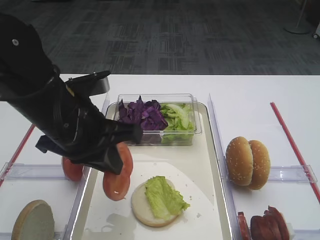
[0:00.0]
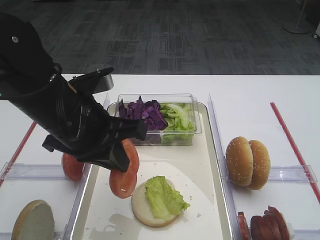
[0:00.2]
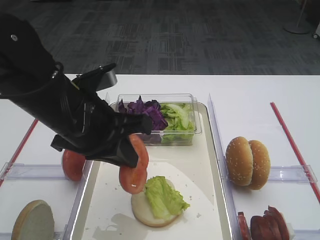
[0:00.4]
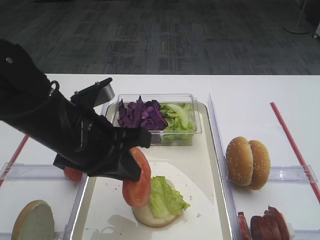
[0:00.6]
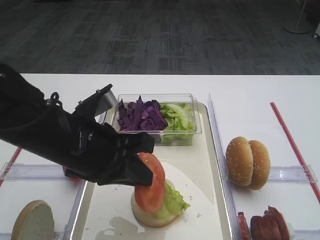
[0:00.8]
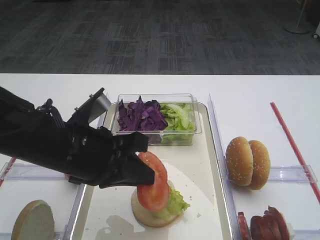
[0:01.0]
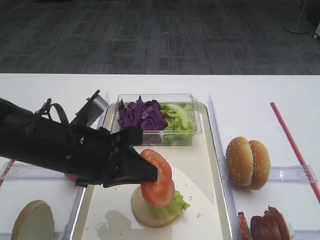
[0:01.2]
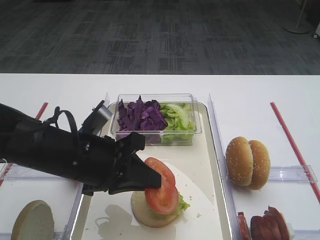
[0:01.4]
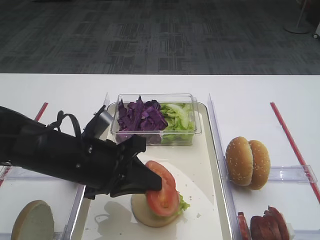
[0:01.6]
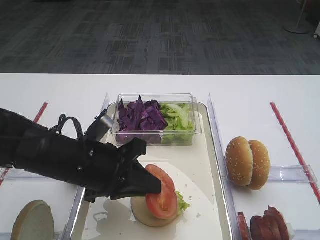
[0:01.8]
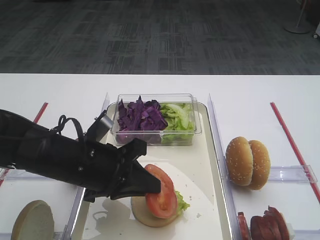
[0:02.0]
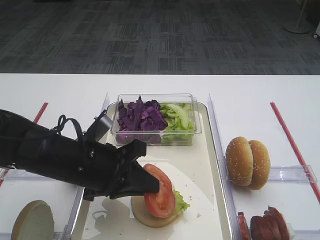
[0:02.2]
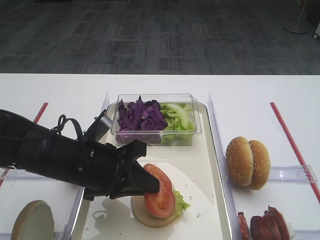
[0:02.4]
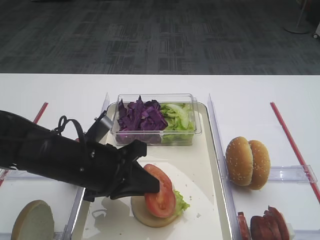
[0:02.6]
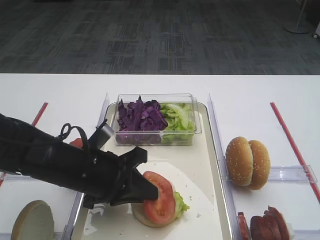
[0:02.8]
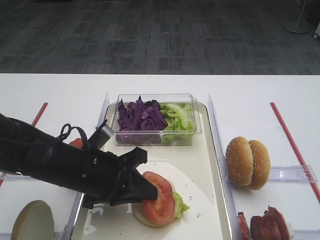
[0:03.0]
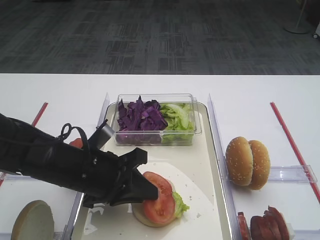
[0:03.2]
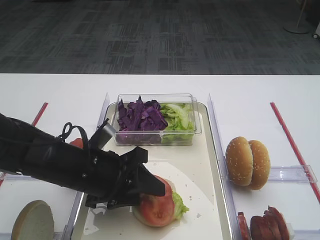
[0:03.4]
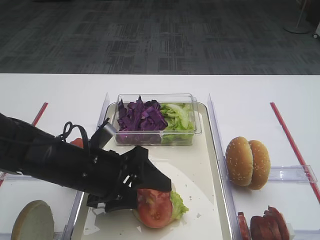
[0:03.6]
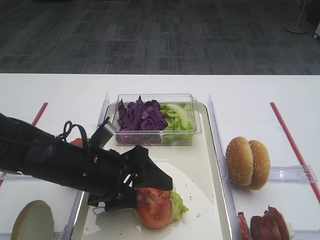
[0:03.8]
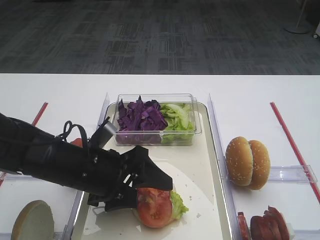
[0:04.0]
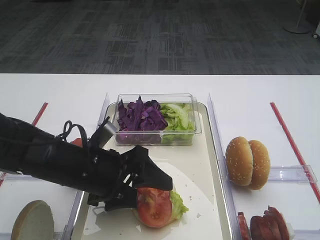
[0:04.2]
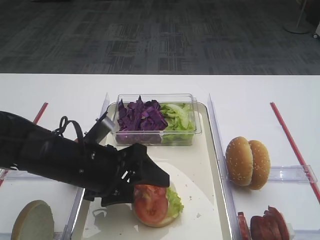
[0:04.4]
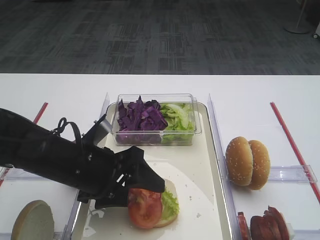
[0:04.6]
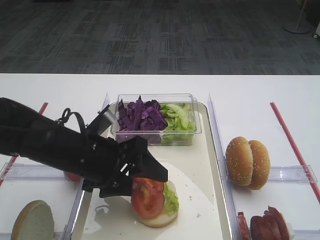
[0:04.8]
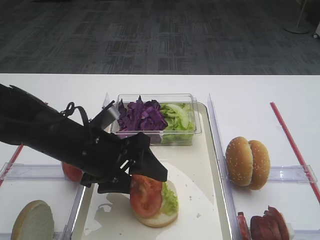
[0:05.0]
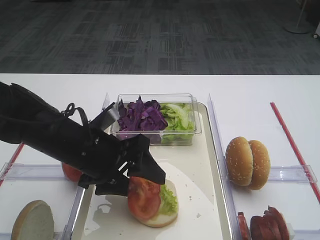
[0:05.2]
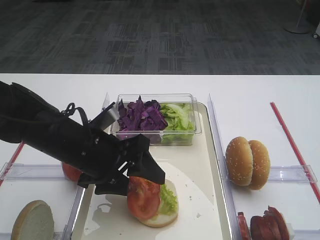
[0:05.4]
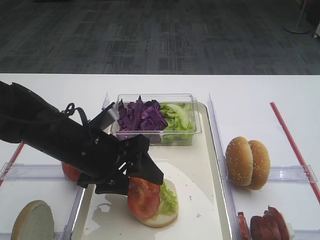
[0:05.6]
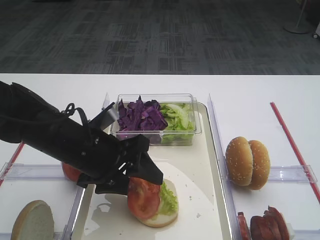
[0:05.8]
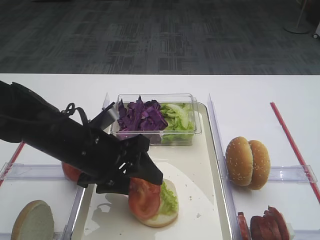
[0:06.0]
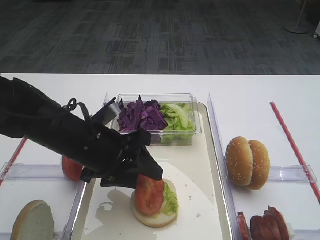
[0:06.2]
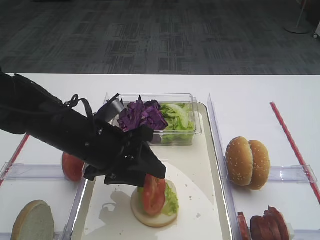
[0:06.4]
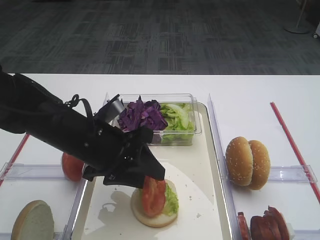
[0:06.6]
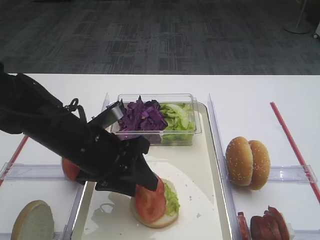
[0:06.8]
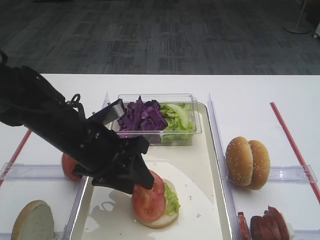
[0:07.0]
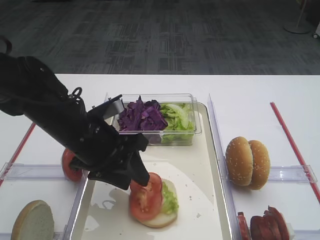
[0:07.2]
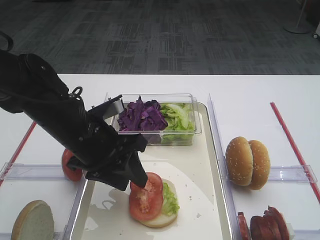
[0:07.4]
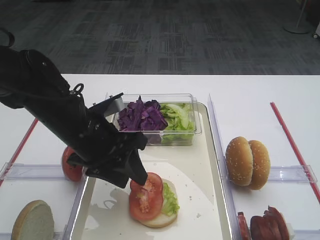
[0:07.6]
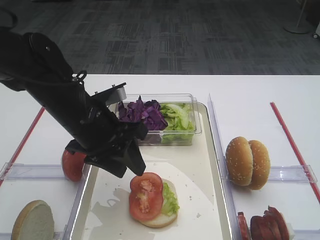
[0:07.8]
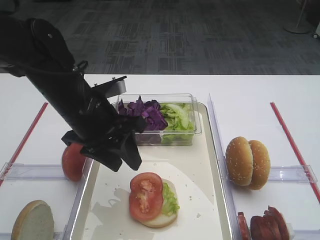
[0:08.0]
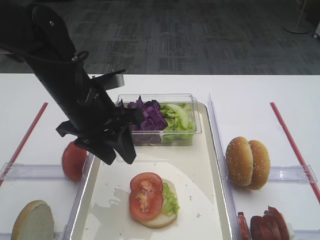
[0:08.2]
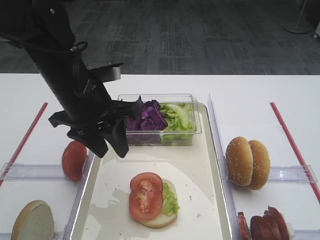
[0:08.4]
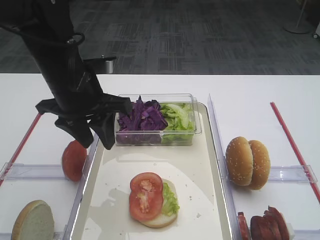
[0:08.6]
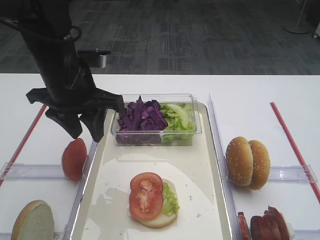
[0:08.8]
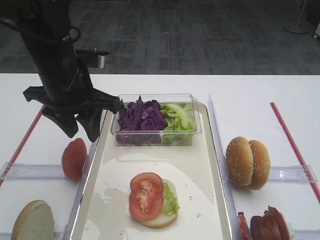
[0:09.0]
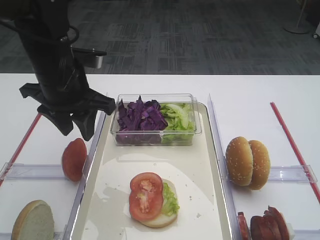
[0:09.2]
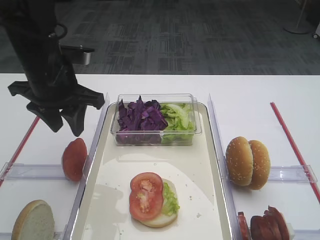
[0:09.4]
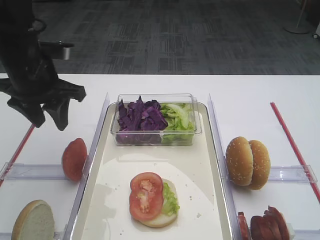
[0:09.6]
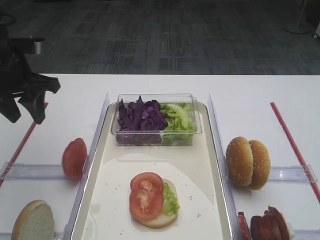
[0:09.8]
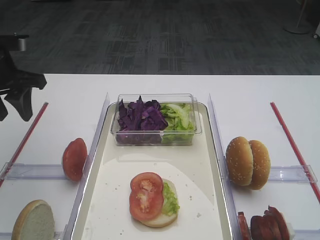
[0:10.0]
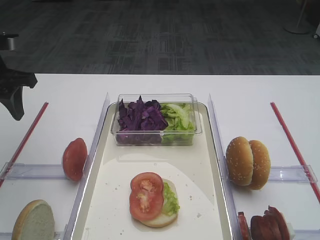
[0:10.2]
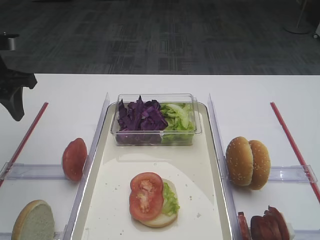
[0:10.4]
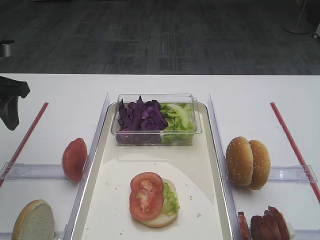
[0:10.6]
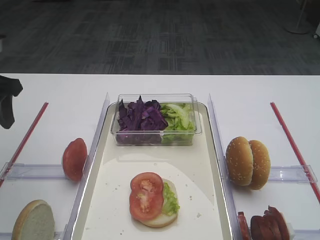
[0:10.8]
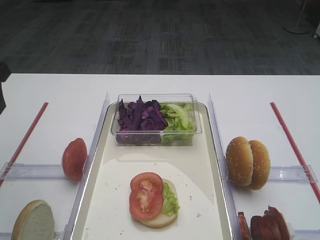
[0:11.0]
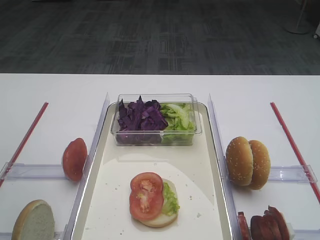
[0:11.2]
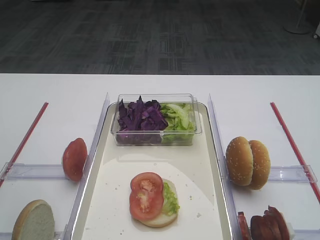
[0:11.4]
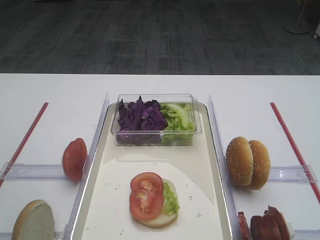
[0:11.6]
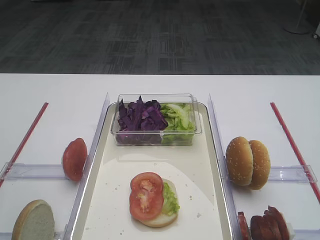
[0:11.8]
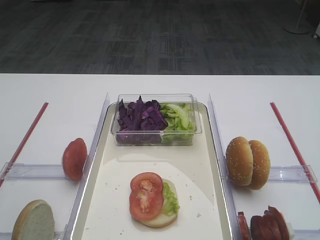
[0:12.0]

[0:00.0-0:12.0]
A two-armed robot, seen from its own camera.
Step, 0:00.0 to 0:07.8: Place the tomato slice on the lettuce leaf with the left gripper.
0:00.0 to 0:01.6: The left gripper travels downward by approximately 10 cm.
0:01.6 to 0:03.0: The grippers move only a little.
0:03.0 to 0:04.4: The left gripper opens its fingers.
0:04.4 to 0:06.0: There are only small adjustments of the grippers.
0:06.0 to 0:07.6: The grippers make only small movements.
0:07.6 to 0:09.0: The left gripper travels upward and forward by roughly 10 cm.
0:09.0 to 0:10.4: The left gripper travels to the left by some 15 cm.
0:10.4 to 0:12.0: The left gripper shifts some 25 cm backward and upward.

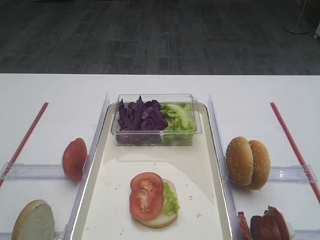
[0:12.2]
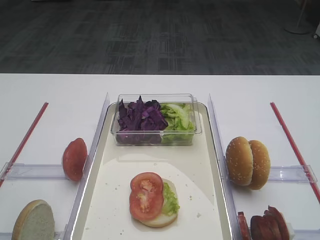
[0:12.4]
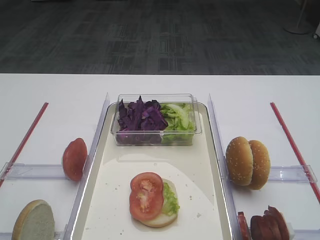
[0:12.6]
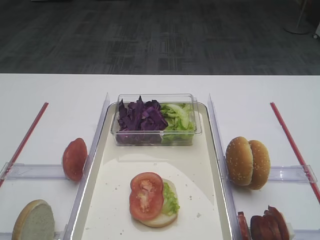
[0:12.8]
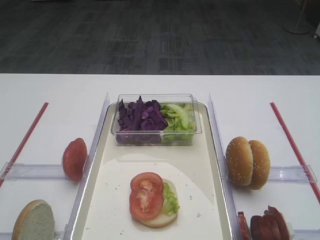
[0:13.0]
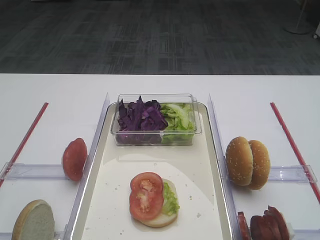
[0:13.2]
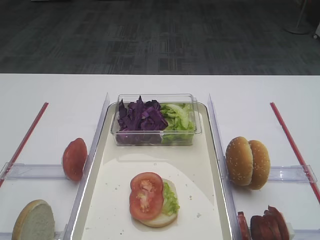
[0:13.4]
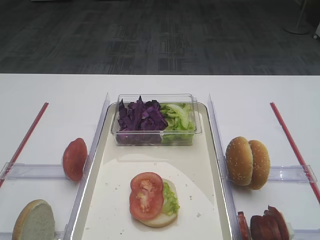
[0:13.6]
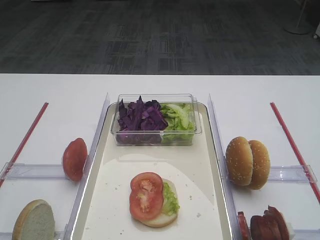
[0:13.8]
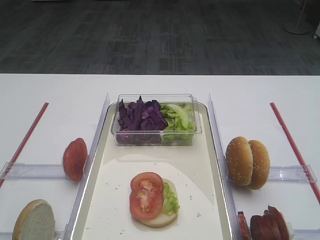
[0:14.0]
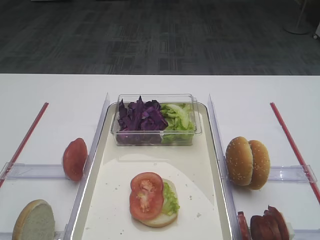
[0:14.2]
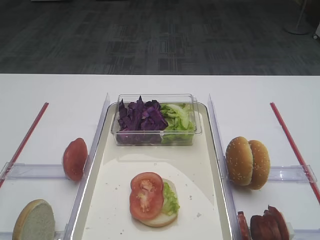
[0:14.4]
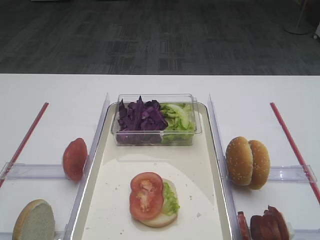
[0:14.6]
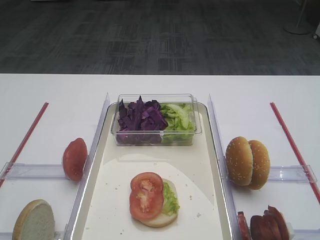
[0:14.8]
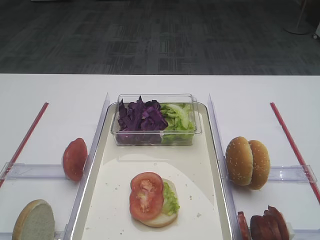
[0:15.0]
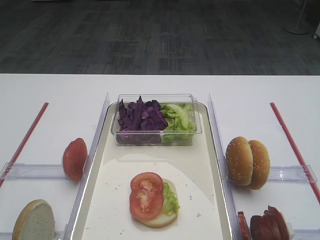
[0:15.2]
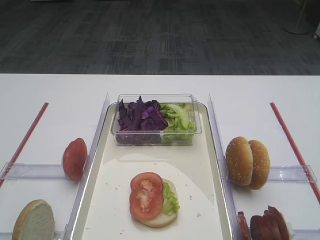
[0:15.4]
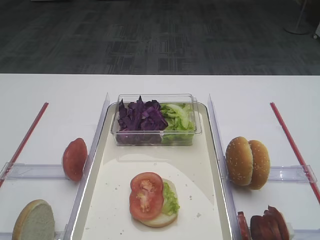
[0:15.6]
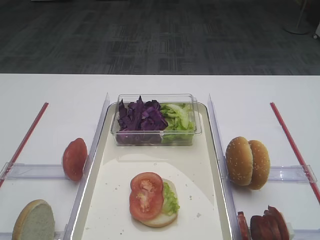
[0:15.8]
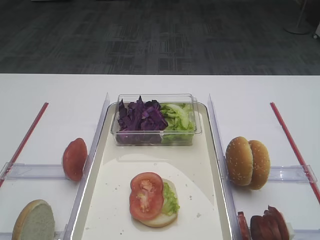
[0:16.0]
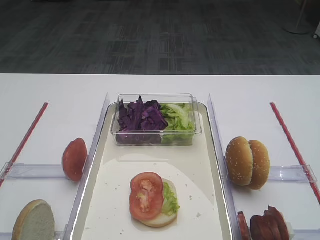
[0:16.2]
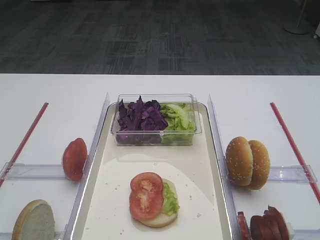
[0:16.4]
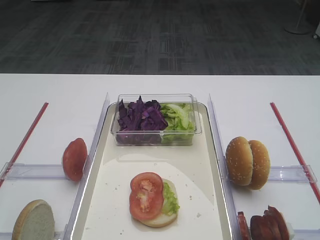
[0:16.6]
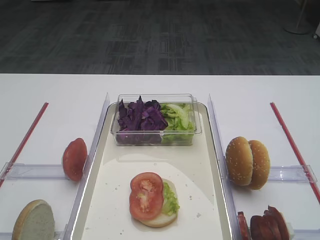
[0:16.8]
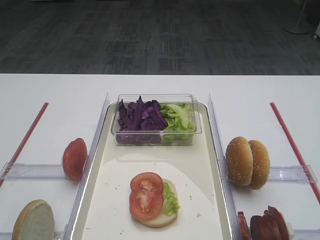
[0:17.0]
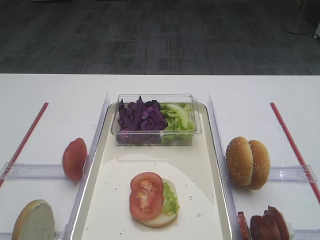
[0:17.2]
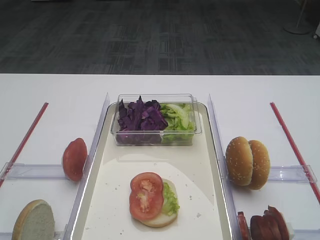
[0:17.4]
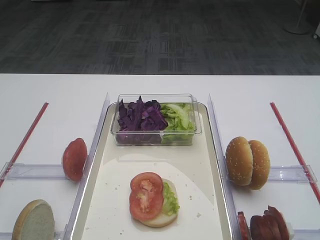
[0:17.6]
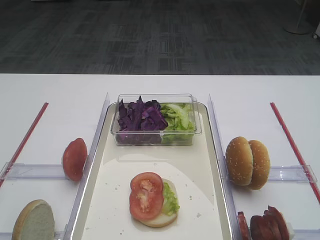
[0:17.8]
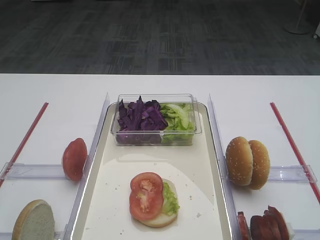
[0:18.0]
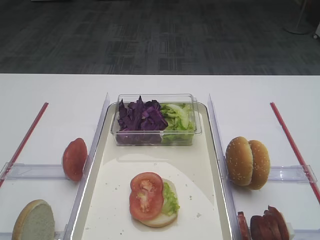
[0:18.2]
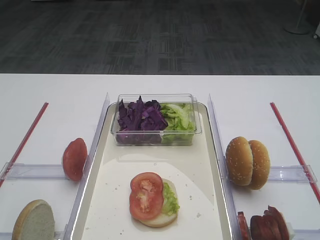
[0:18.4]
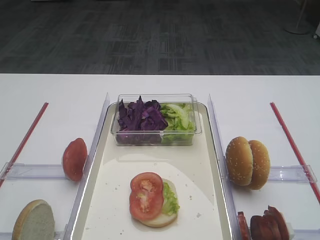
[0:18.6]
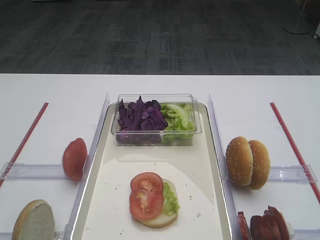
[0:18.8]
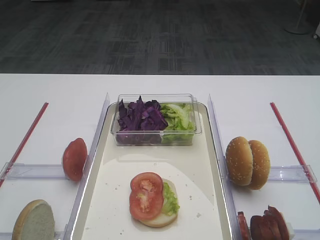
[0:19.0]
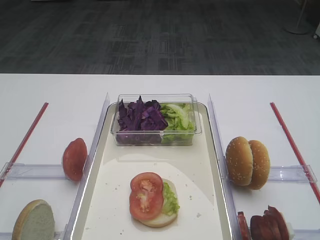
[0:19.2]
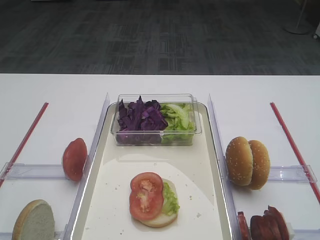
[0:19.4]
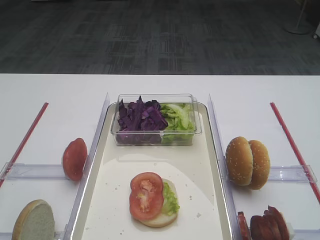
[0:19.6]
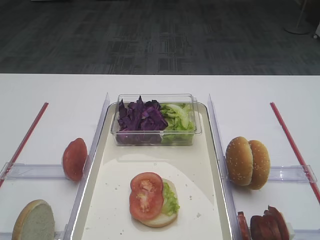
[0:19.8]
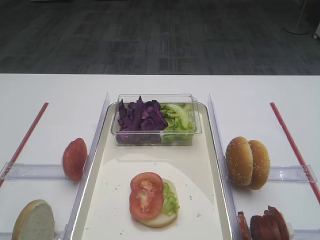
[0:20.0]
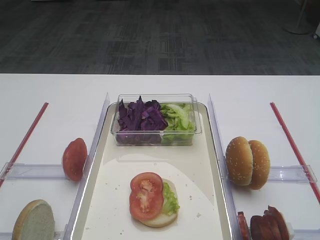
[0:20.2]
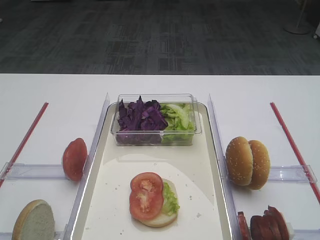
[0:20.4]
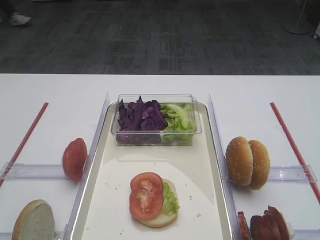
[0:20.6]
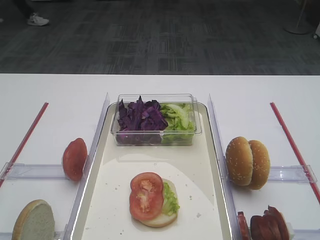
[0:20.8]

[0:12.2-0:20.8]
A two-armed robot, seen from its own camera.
0:15.0 to 0:20.8: Both grippers stay put.

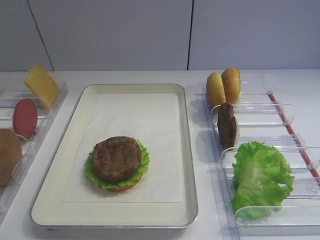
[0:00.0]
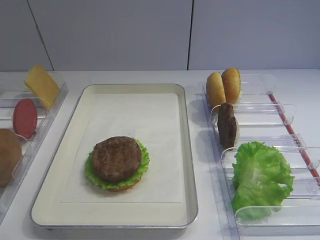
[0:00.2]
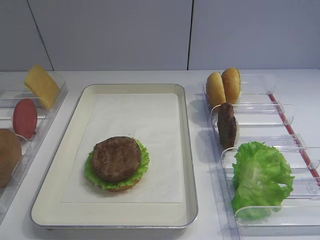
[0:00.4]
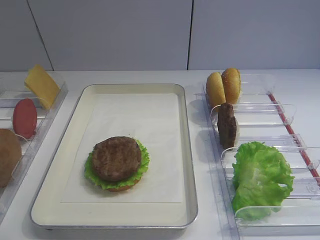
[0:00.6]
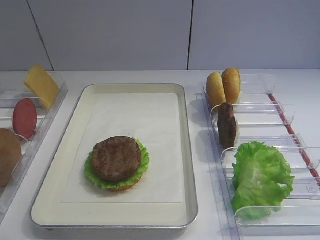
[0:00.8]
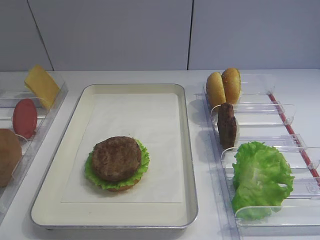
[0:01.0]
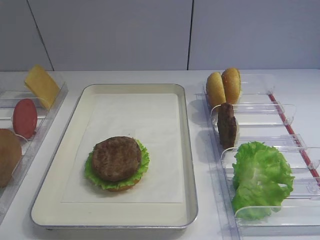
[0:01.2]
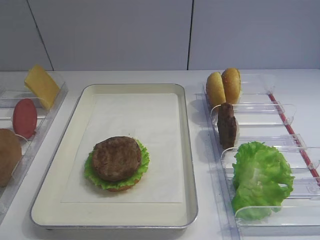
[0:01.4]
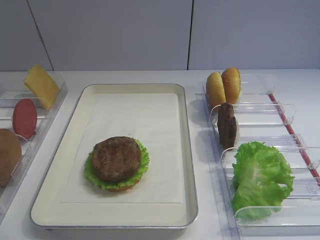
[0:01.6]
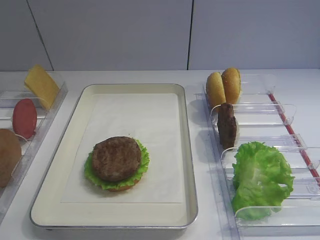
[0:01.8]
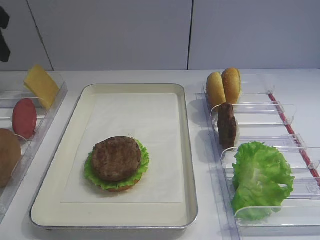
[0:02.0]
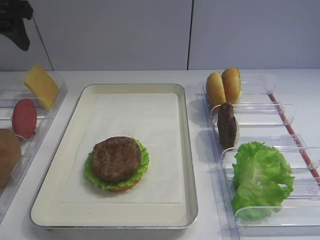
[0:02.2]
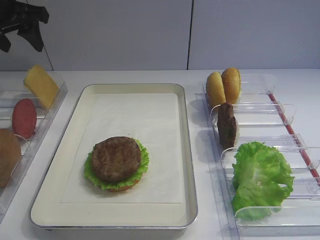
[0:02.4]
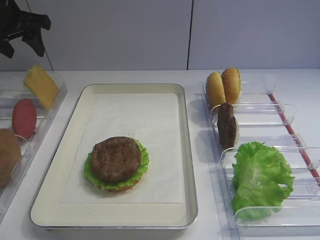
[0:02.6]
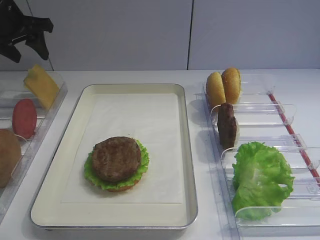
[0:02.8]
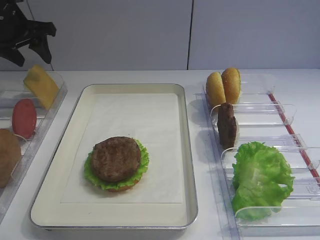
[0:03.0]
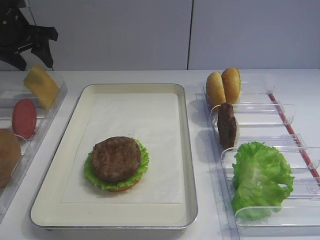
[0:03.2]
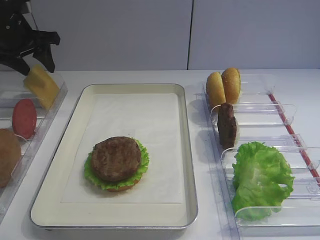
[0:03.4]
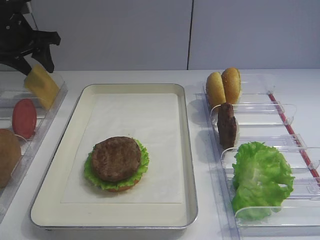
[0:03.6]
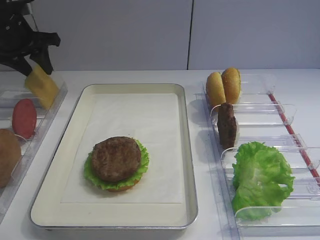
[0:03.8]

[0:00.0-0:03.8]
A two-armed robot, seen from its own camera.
0:01.2 to 0:02.6: The left gripper goes approximately 40 cm forward, and opens.
0:02.6 to 0:03.8: The grippers make only small movements.
